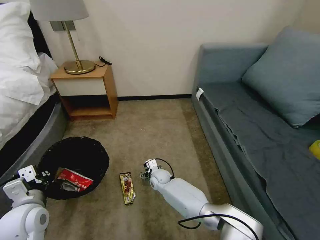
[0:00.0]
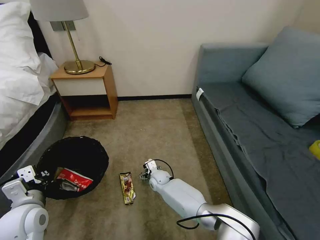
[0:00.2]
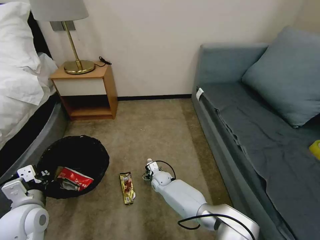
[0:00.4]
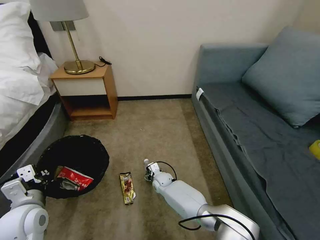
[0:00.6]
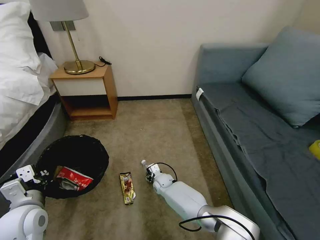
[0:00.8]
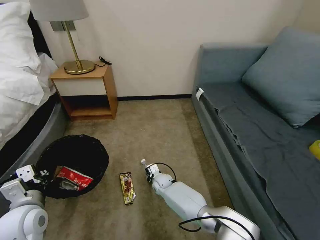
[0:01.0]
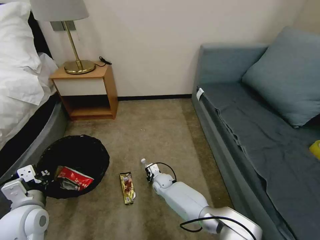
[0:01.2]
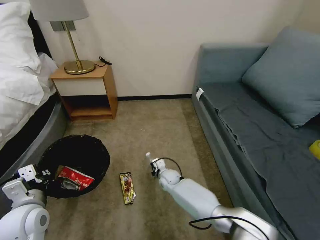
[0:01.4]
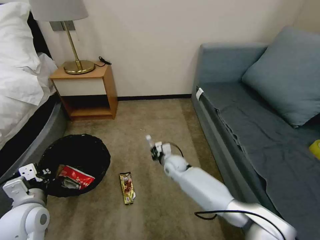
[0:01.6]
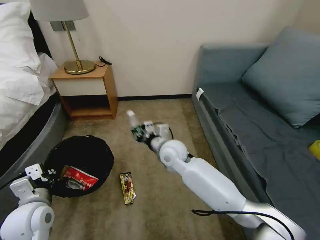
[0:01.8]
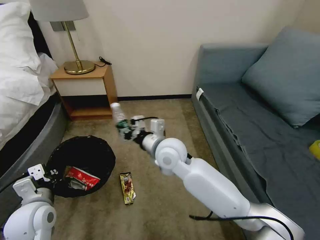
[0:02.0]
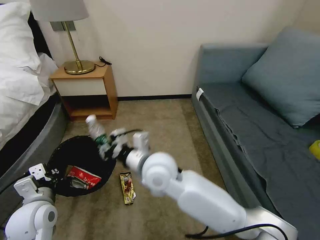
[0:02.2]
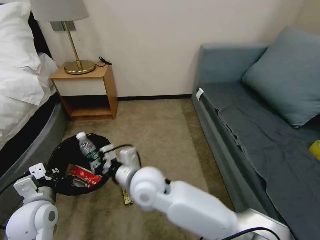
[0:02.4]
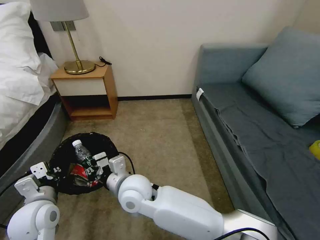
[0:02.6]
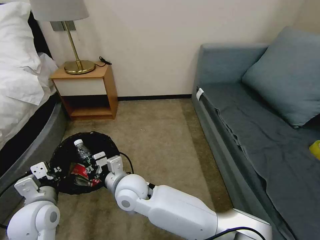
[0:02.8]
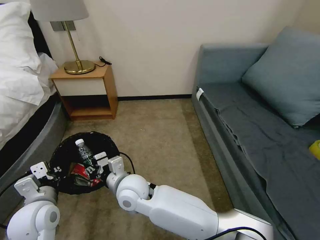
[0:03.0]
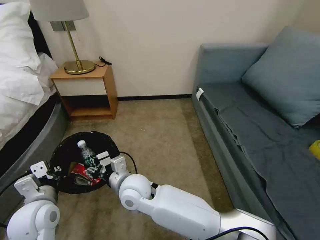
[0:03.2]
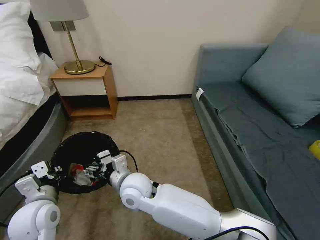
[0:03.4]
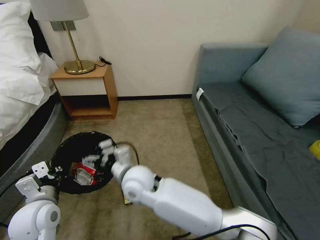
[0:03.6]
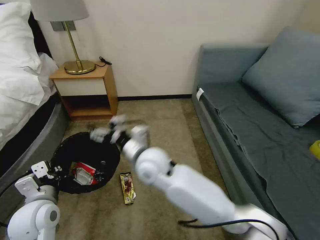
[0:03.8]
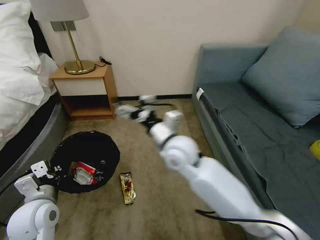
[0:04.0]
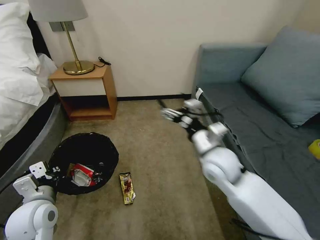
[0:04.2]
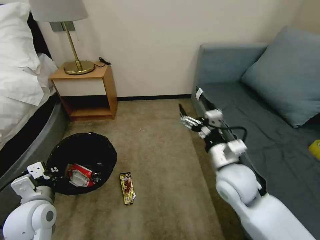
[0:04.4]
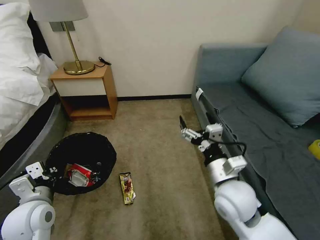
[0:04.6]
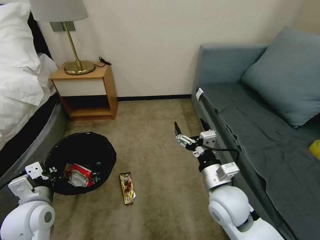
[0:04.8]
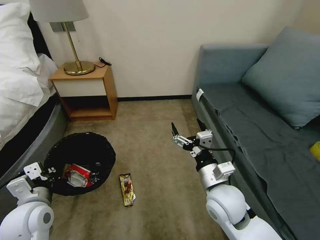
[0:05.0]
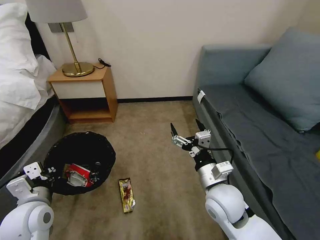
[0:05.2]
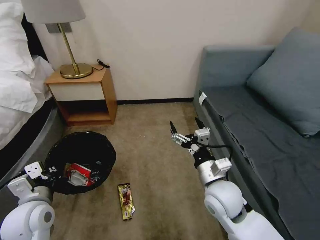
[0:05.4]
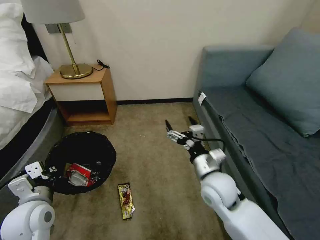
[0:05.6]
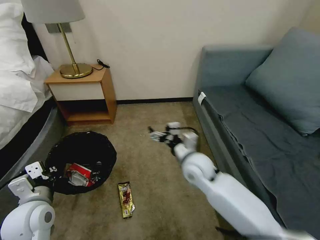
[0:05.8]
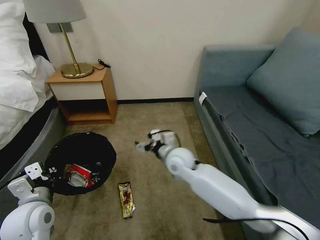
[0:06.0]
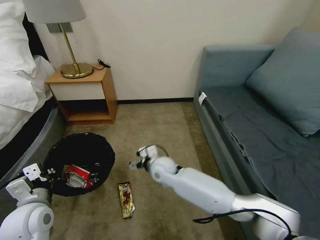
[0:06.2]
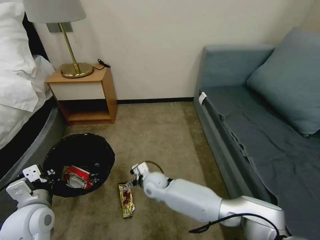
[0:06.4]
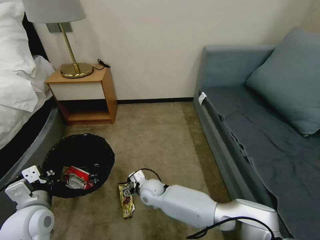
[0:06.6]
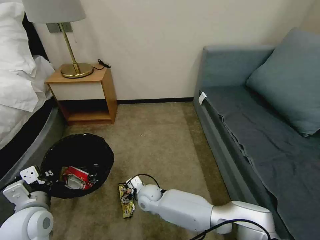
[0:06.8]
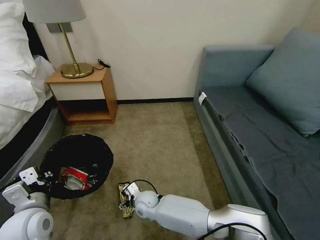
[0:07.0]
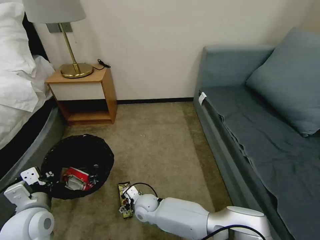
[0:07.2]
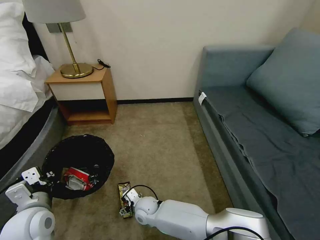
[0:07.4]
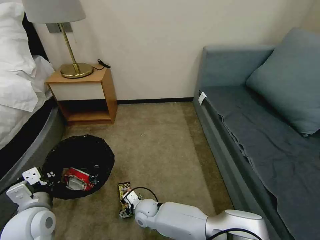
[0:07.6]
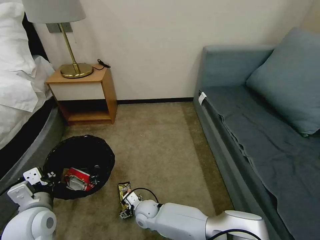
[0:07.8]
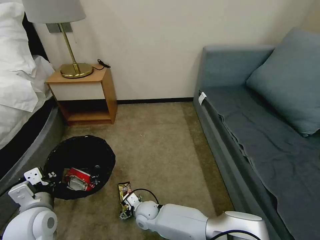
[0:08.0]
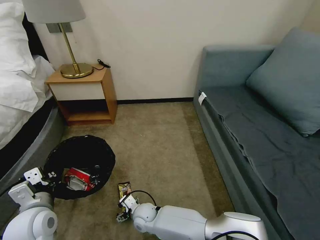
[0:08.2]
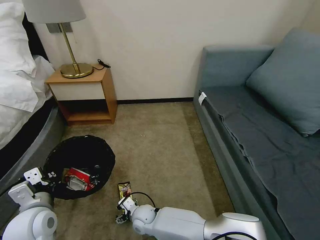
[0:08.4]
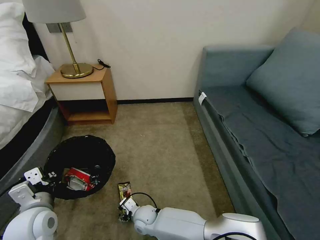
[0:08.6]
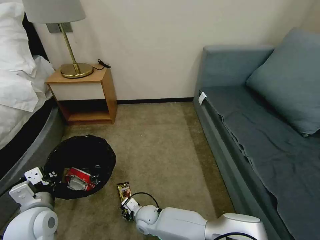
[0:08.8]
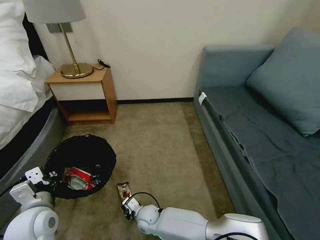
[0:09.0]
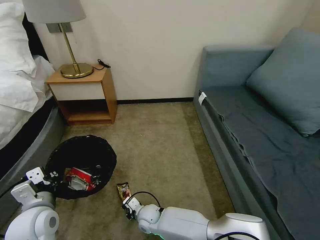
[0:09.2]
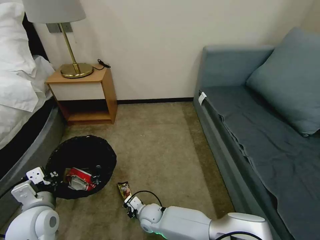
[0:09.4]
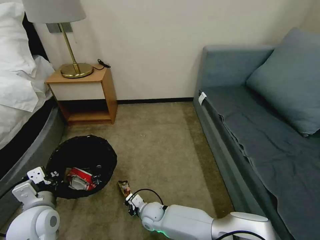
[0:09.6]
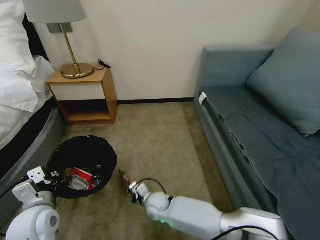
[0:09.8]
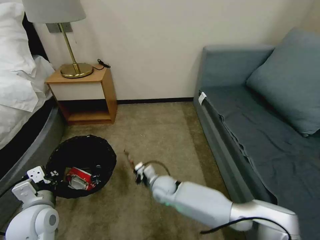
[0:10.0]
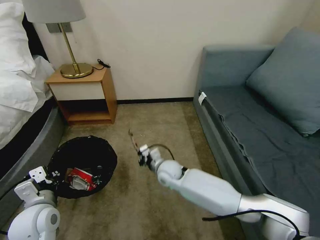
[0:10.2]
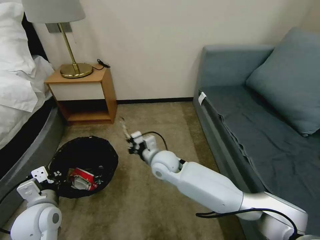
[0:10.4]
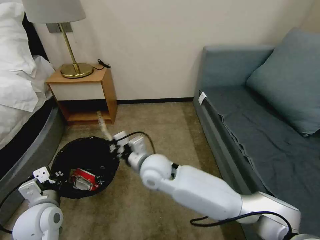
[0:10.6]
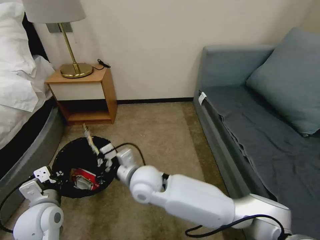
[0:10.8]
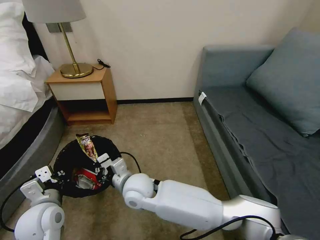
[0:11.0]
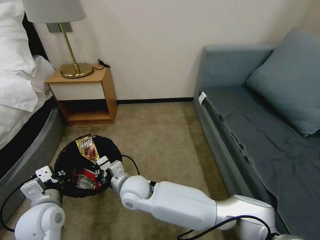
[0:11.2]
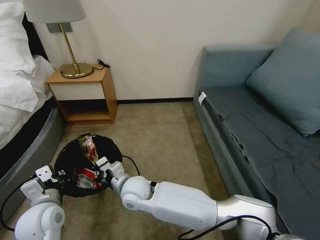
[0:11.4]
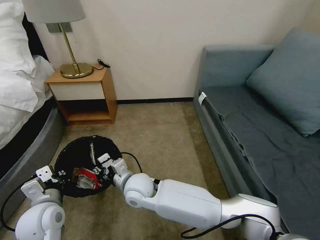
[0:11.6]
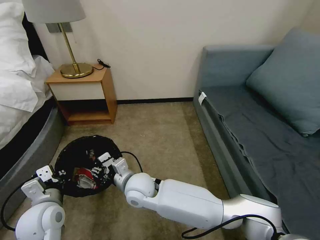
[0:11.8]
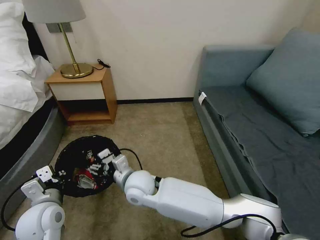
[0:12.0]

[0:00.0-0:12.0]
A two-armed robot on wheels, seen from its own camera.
Task of the whole recording: Pick up the trash bin, then pick up the garbage on the floor and place it into the trash bin.
0.0 to 1.6 s: The right gripper goes approximately 10 cm to the right and upward, and closes up.
1.6 to 3.0 s: The right gripper goes about 25 cm backward, upward and to the left.
3.0 to 4.4 s: The right gripper moves to the right, some 30 cm, and opens its fingers.
4.4 to 6.0 s: The right gripper moves to the left, forward and downward, some 20 cm.
6.0 to 7.6 s: The right gripper moves downward, backward and to the left, some 25 cm.
7.6 to 9.0 s: The right gripper closes.
9.0 to 10.4 s: The right gripper goes about 25 cm upward and forward, and closes.
10.4 to 12.0 s: The right gripper shifts some 10 cm to the left and backward, and opens up.

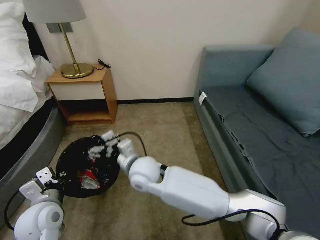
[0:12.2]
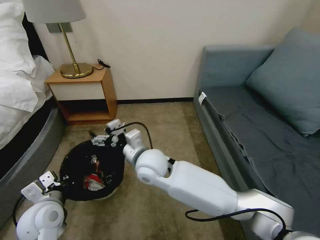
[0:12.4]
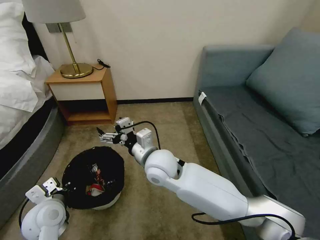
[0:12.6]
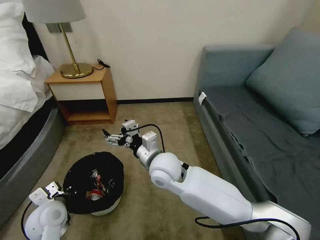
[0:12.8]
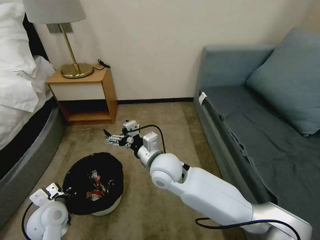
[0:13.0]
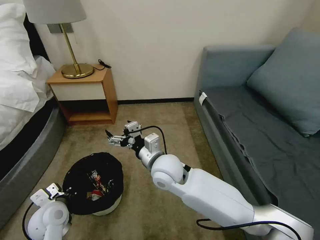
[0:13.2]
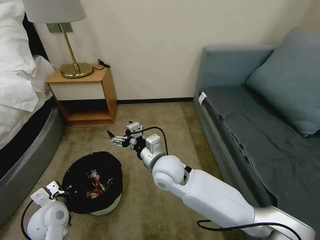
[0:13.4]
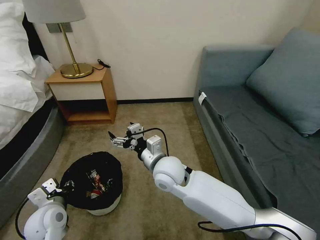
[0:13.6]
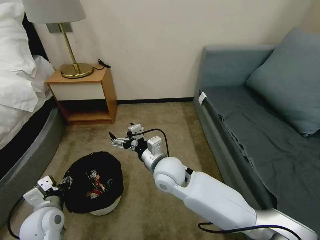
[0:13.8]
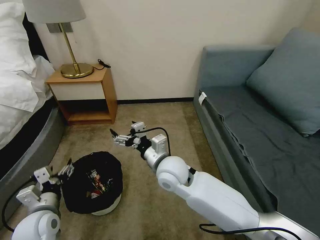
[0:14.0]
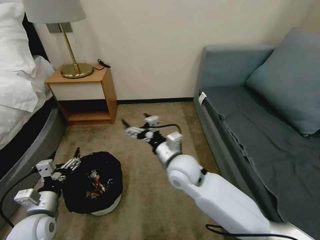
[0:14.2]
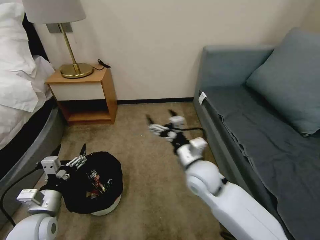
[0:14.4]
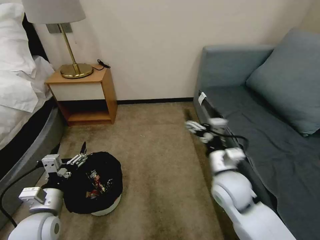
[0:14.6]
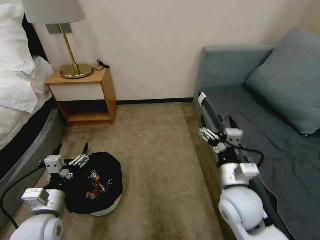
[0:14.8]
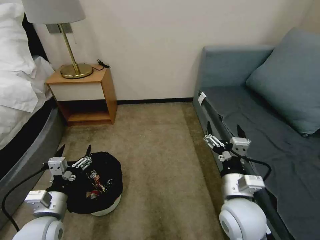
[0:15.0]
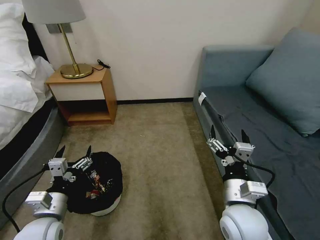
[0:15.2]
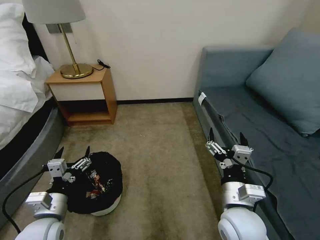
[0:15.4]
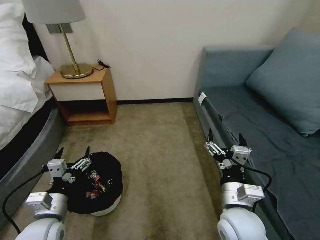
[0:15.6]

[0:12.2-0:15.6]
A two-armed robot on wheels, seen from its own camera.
Task of the whole recording: Pick up the trash bin, then pick up the garbage on the floor and place it into the trash bin.
12.2 to 13.8 s: The left gripper is displaced downward by some 5 cm, and opens. Meanwhile the right gripper travels to the right by some 5 cm.
13.8 to 15.6 s: The right gripper travels to the right and backward by roughly 20 cm. The left gripper moves roughly 5 cm, and opens up.

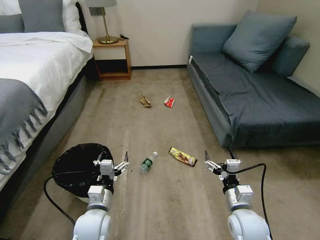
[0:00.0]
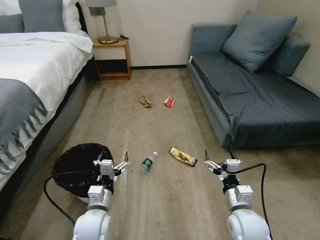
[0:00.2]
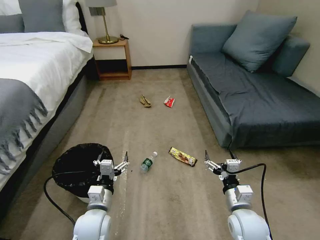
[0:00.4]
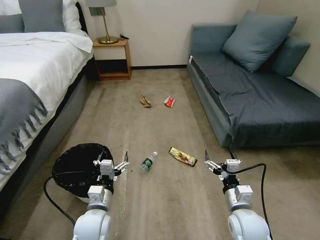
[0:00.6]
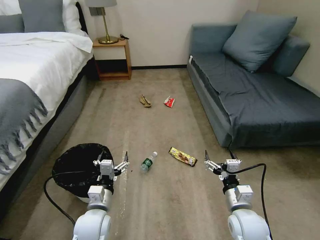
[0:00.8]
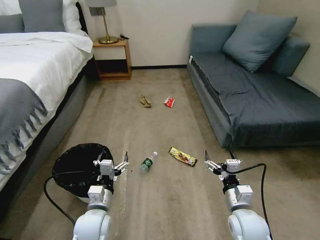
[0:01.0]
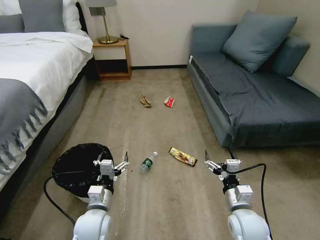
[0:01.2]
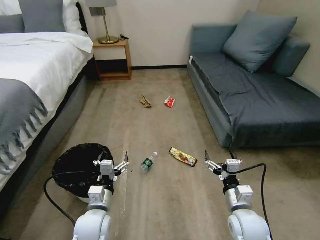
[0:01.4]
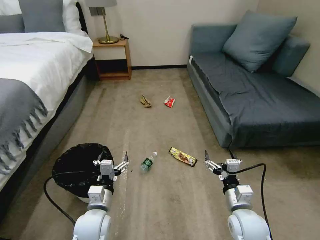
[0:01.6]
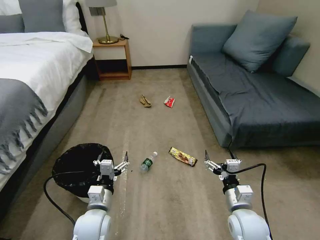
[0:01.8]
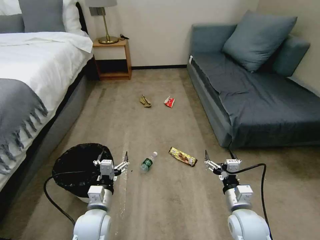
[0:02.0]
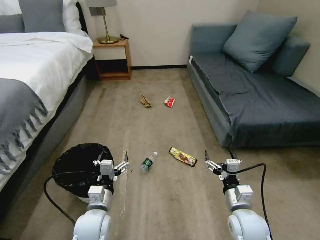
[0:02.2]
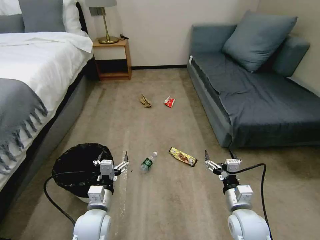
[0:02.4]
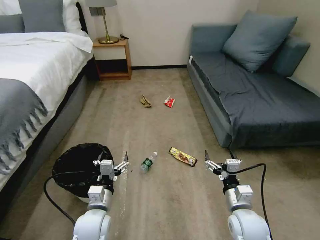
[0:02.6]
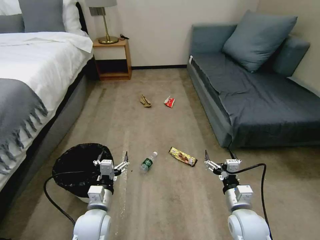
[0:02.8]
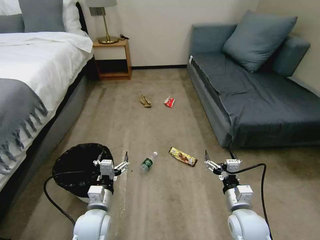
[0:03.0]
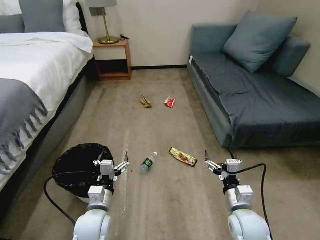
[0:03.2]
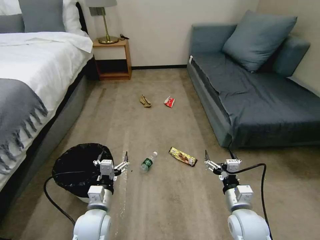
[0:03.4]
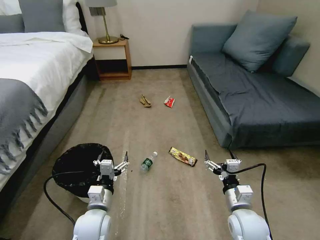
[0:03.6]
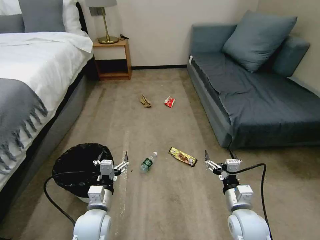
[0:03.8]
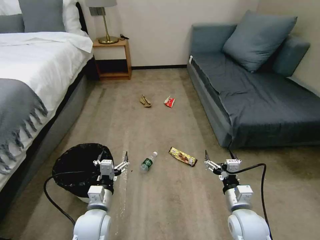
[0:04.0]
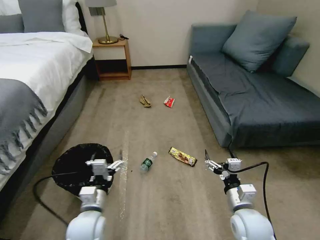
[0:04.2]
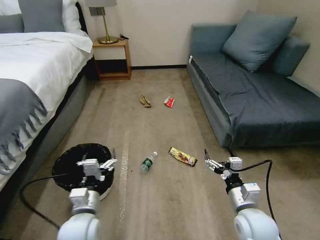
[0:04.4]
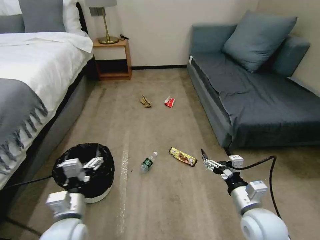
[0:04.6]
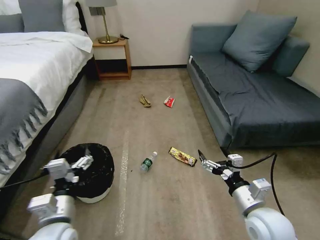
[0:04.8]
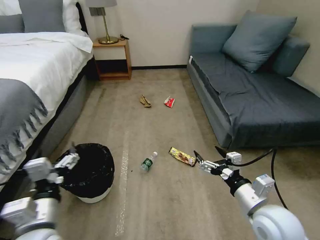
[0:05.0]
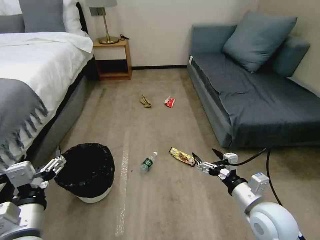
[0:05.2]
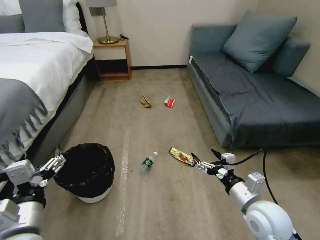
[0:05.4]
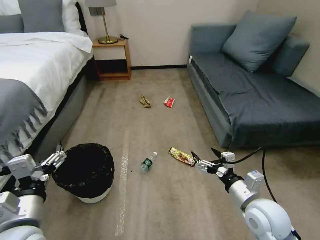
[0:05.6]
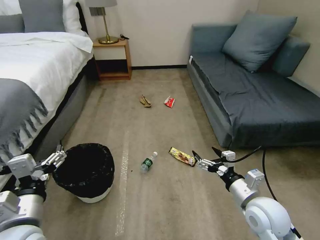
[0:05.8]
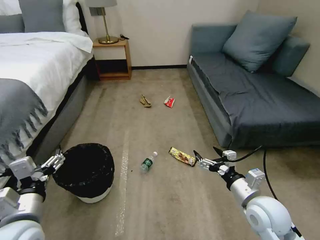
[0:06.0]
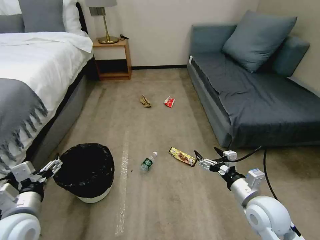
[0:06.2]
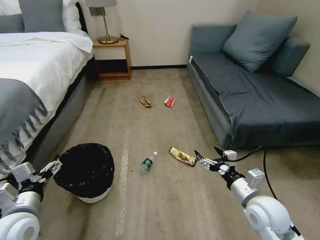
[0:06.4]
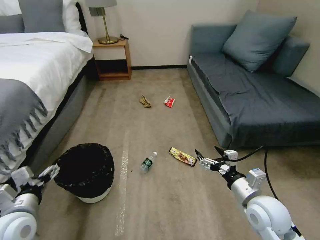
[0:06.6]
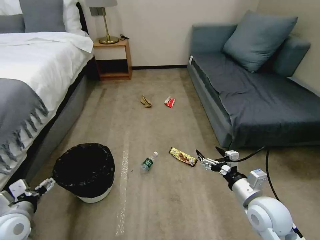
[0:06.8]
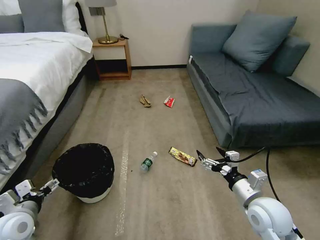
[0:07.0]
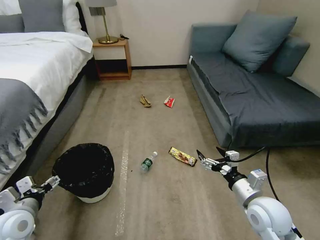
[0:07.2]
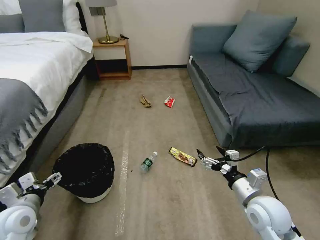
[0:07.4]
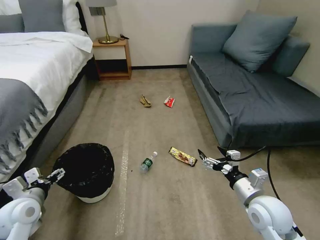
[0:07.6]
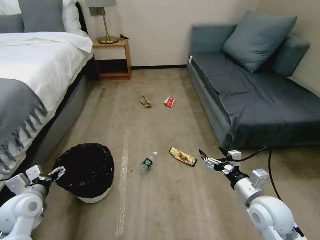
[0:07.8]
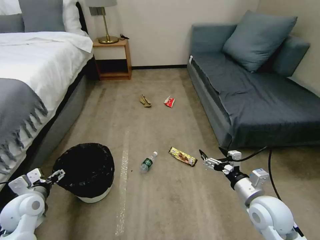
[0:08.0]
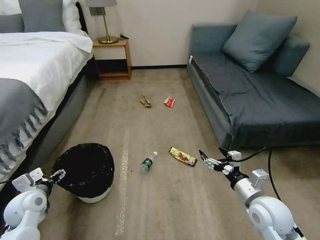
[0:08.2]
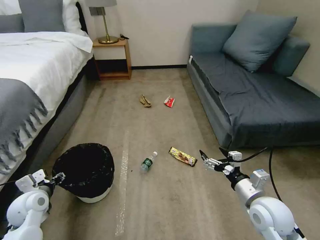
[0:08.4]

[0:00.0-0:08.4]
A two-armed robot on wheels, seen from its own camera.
Task of the whole recording: Pick up the trash bin, then pick up the garbage on the floor and place it into the trash bin.
1.4 to 2.8 s: Both grippers stay put.
2.8 to 4.2 s: There are only small adjustments of the grippers.
4.2 to 5.6 s: The left gripper goes roughly 20 cm upward, to the left and backward. Meanwhile the right gripper is displaced upward by approximately 5 cm.
5.6 to 7.0 s: The left gripper moves to the left and downward, approximately 15 cm.
7.0 to 8.4 s: The left gripper travels forward by some 5 cm.
